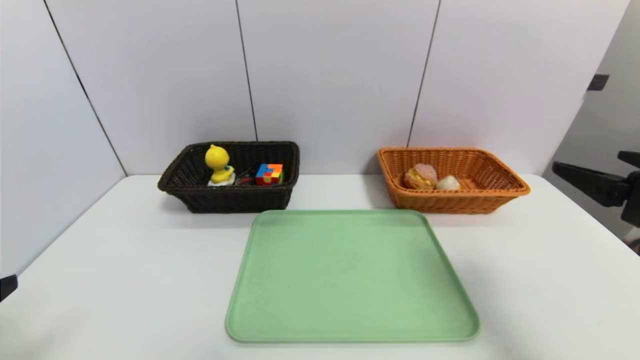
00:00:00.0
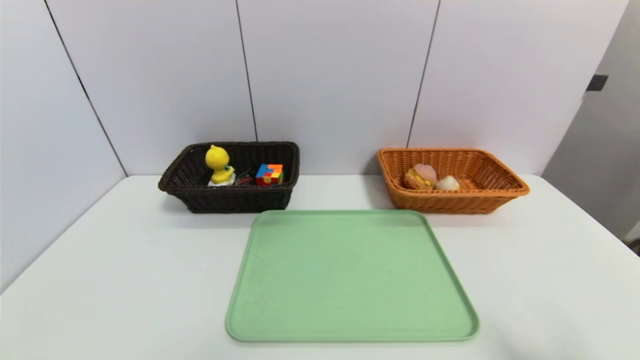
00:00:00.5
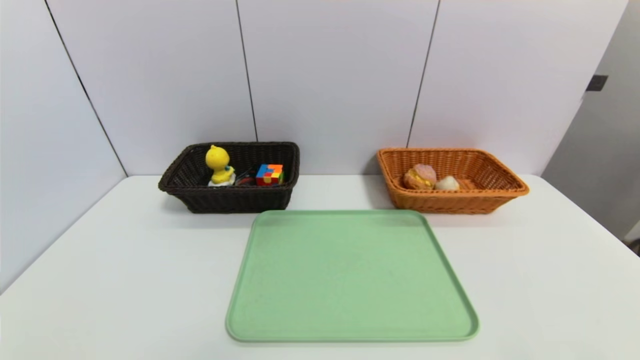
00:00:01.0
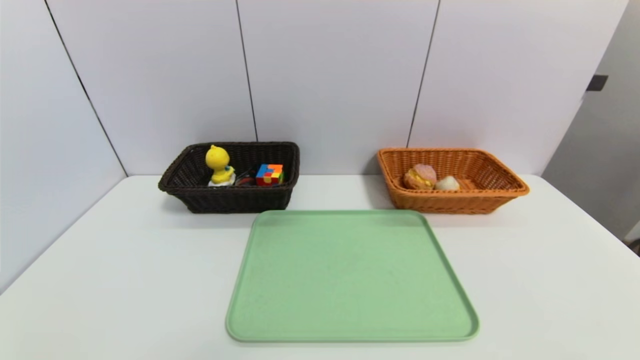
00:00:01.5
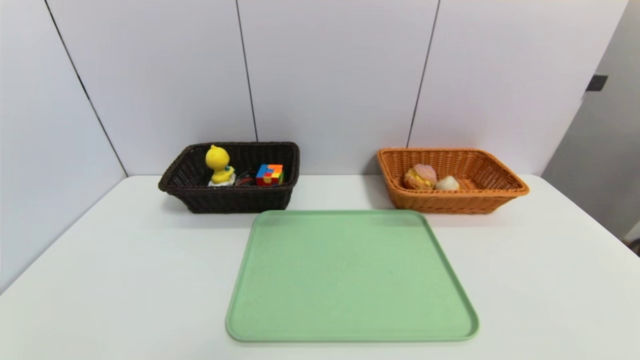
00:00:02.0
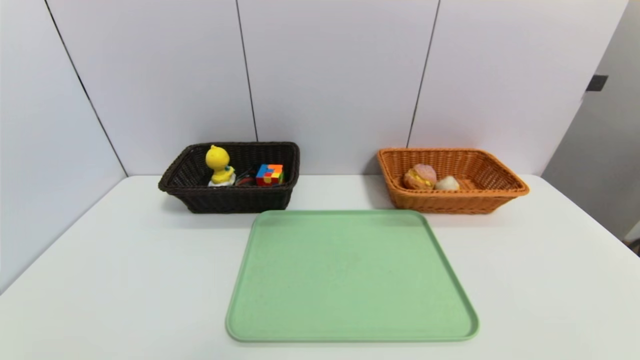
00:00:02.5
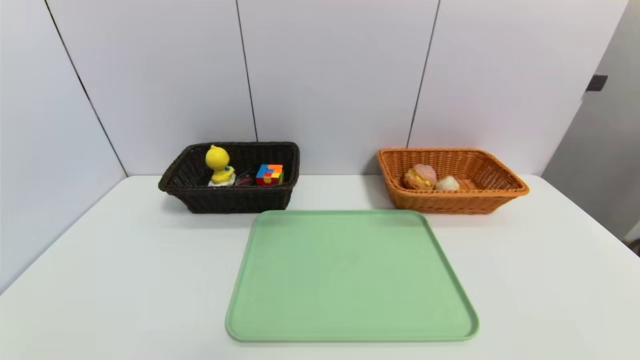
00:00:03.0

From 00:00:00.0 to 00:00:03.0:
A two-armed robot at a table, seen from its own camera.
Task of the whole recording: place the food in the right basket with the right gripper, and place the non food items in the left basket with the left gripper.
From 00:00:00.0 to 00:00:01.5: The left gripper heads downward and backward, covering roughly 15 cm, while the right gripper travels backward and downward by some 20 cm.
